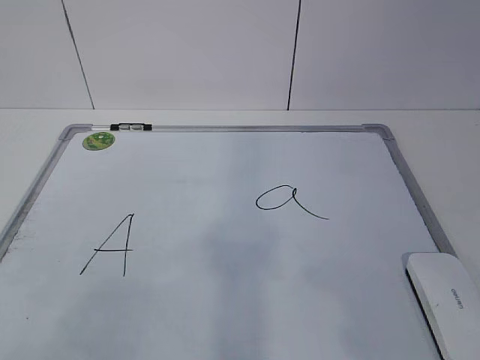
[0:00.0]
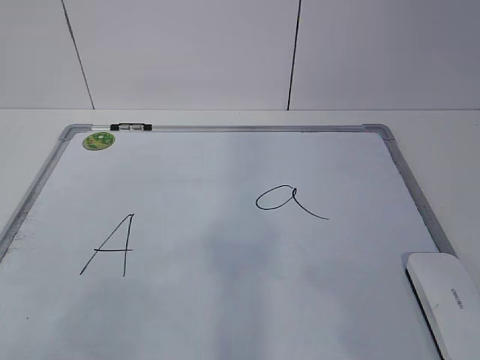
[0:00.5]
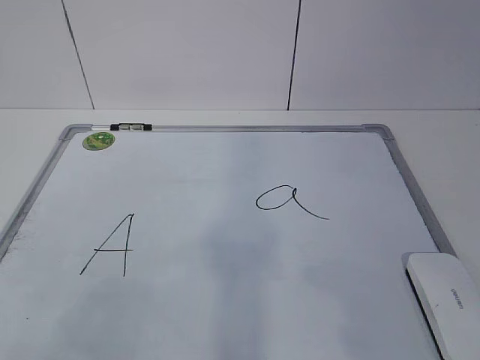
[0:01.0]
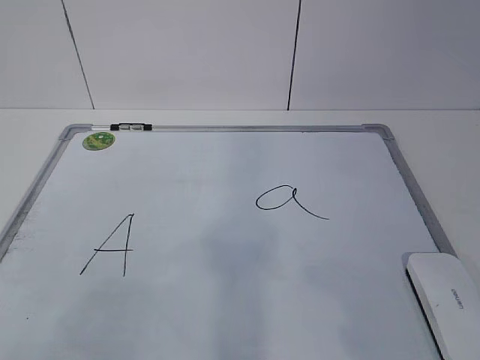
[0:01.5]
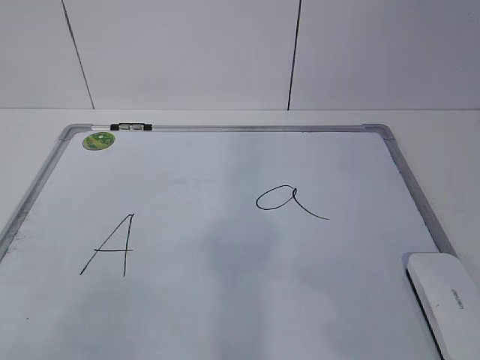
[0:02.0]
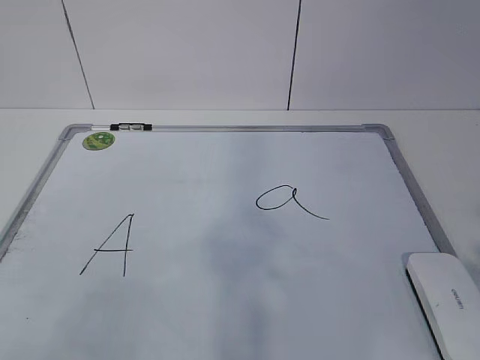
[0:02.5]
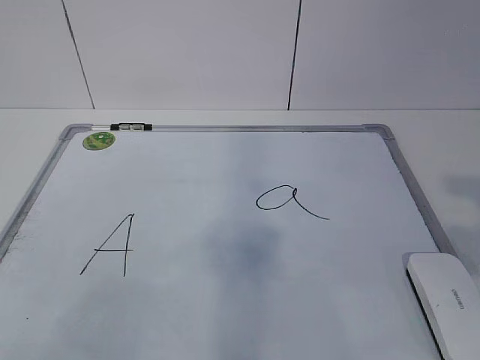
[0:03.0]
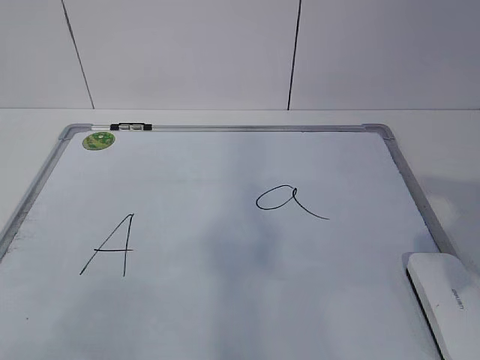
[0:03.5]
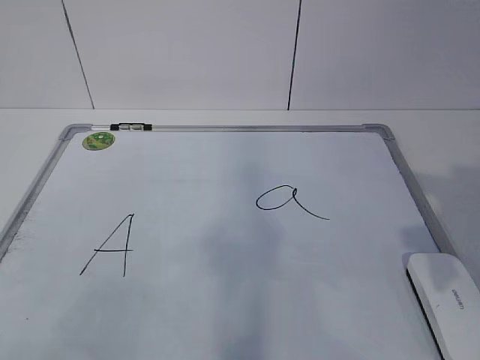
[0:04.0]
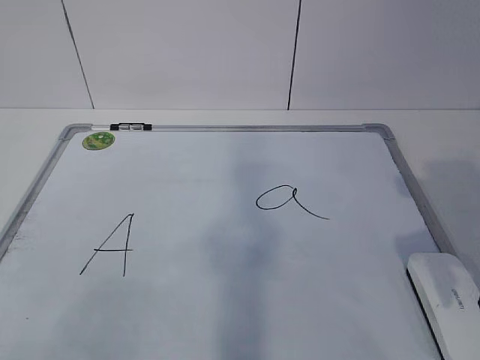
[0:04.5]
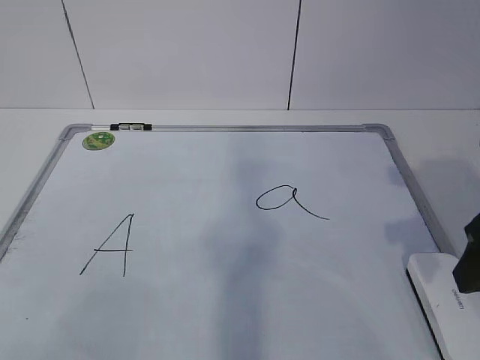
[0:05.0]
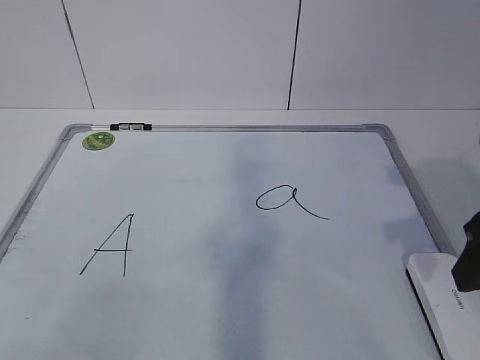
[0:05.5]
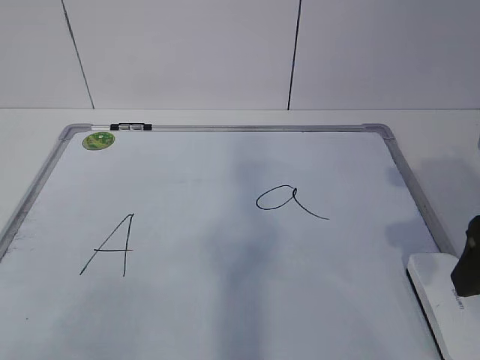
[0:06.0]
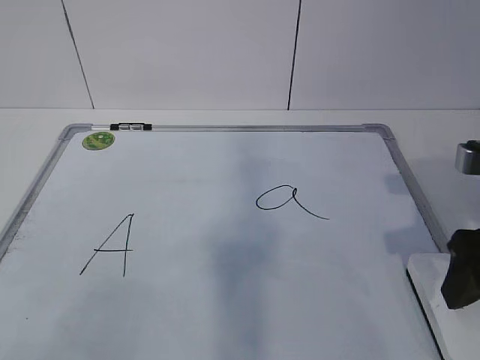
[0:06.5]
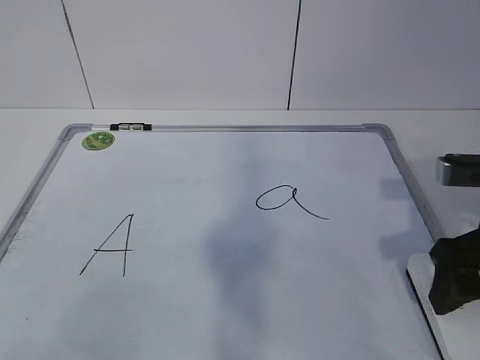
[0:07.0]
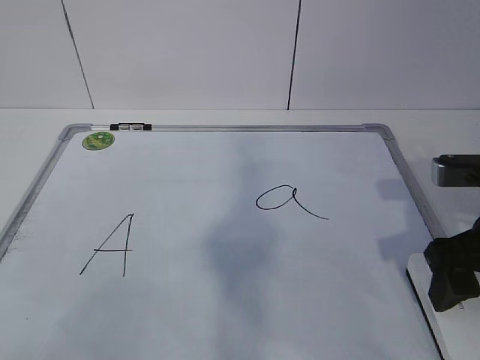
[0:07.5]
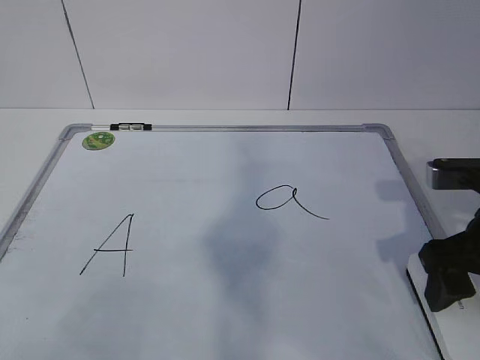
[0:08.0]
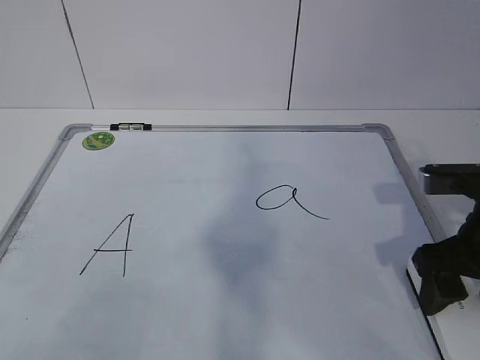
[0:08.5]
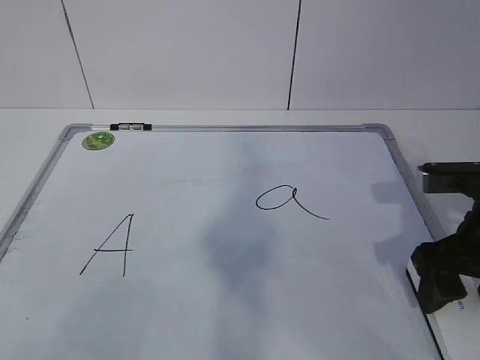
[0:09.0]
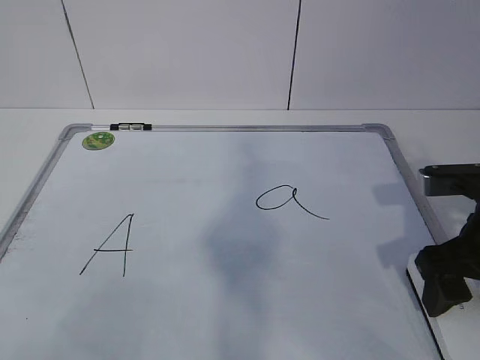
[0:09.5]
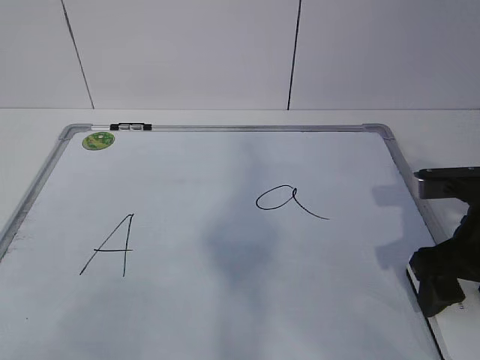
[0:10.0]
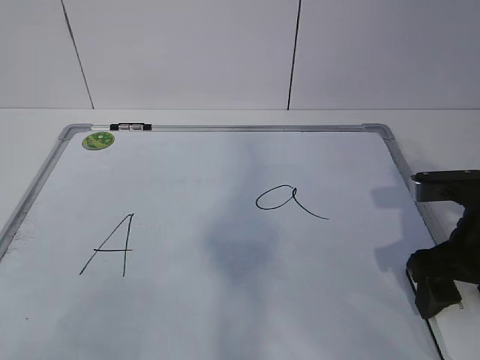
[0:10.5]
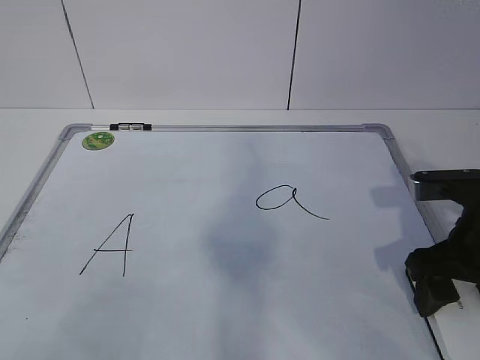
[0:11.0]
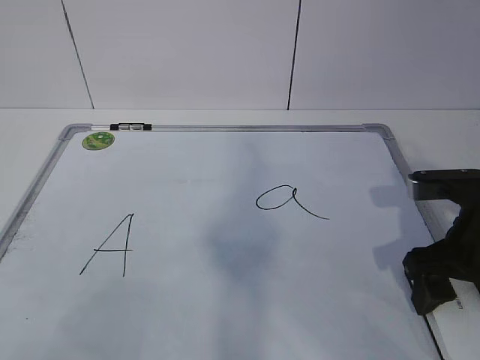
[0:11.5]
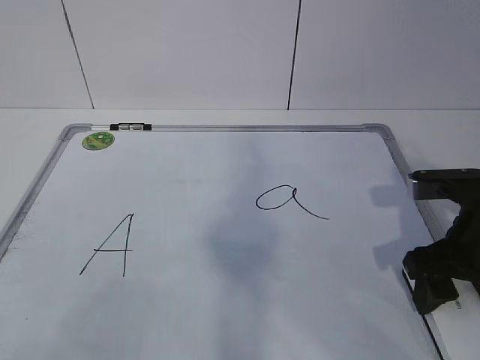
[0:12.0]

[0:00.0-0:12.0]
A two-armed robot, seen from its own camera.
Task of the whole recording: pick up the eraser on the blackboard and erase the letter "a".
Step, 0:00.0 to 0:09.5: Grab the eraser with your right hand.
0:02.0 to 0:04.0: The right gripper heads forward, covering approximately 15 cm.
0:04.0 to 0:06.0: The grippers move only a little.
0:06.0 to 0:08.0: The right gripper goes some 5 cm downward.
0:08.0 to 0:10.0: The grippers move only a little.
0:10.0 to 0:12.0: The two grippers keep their place.

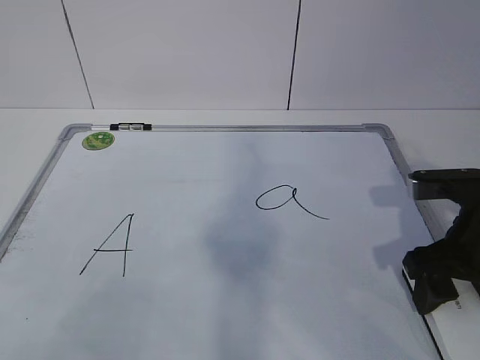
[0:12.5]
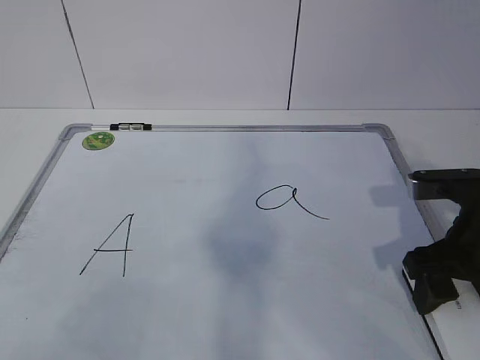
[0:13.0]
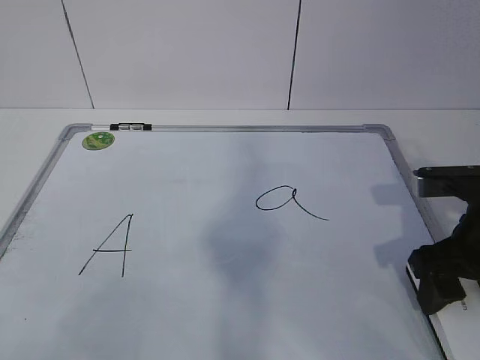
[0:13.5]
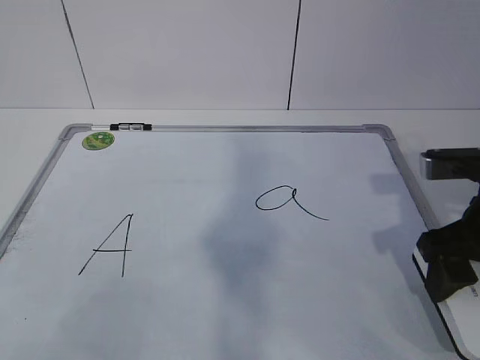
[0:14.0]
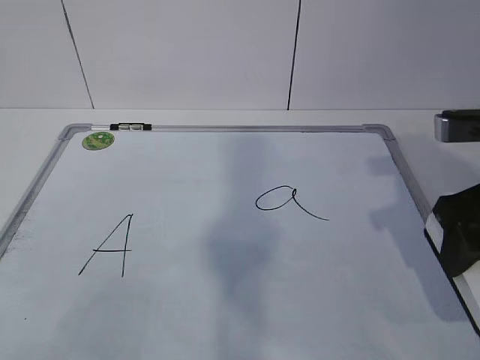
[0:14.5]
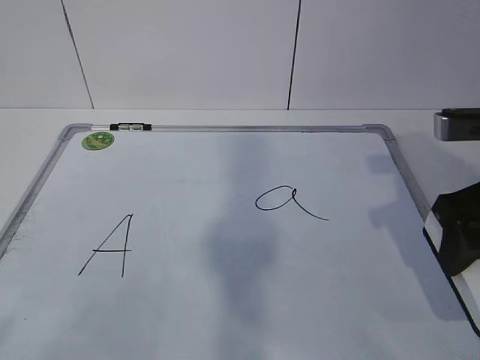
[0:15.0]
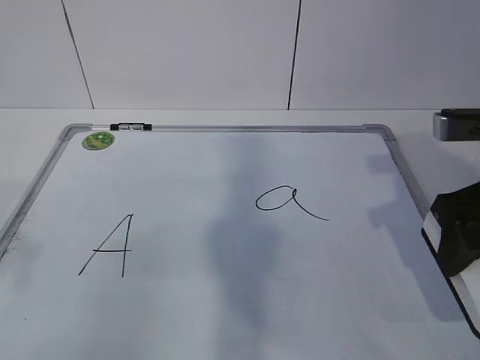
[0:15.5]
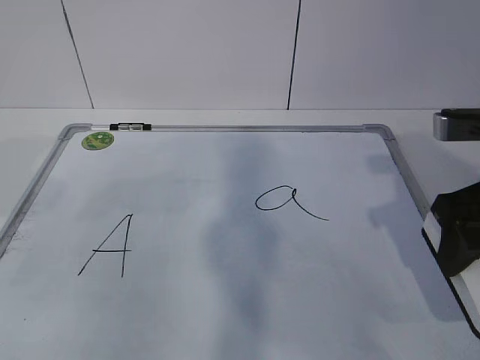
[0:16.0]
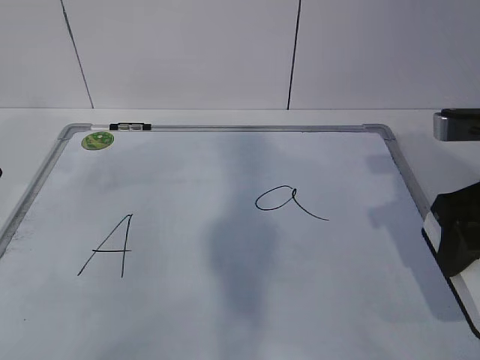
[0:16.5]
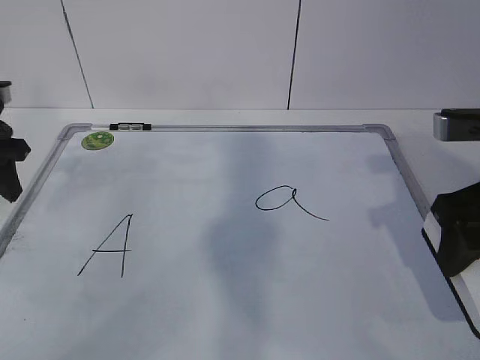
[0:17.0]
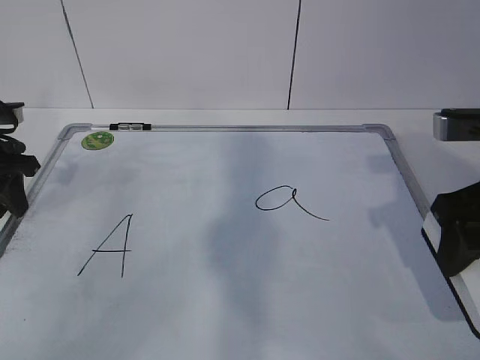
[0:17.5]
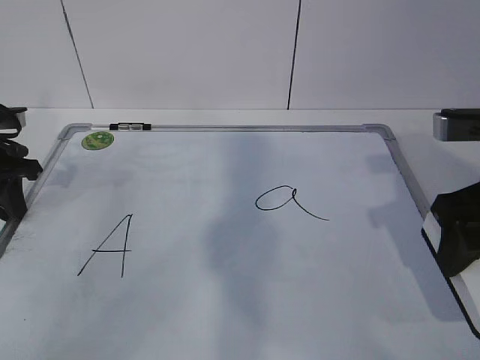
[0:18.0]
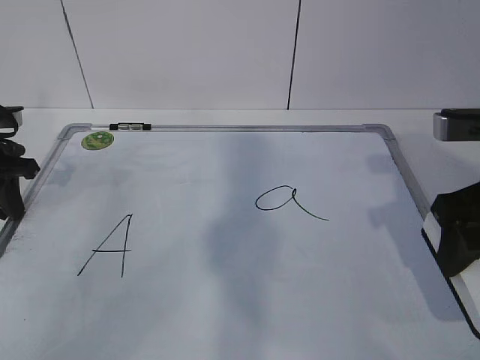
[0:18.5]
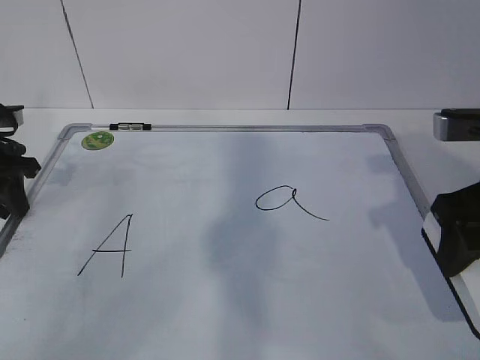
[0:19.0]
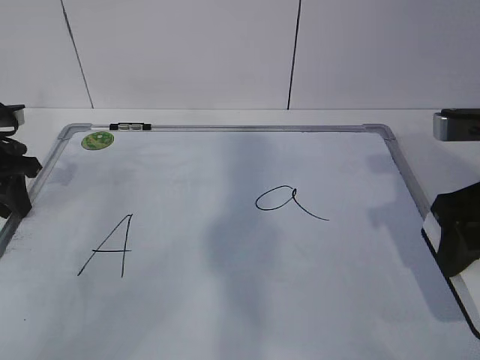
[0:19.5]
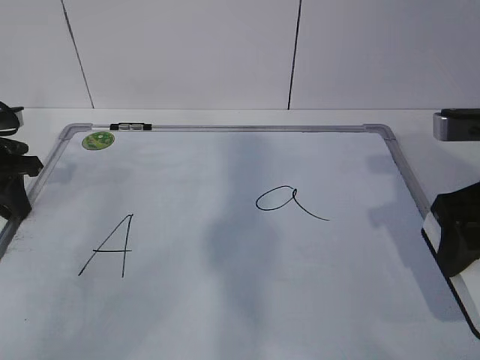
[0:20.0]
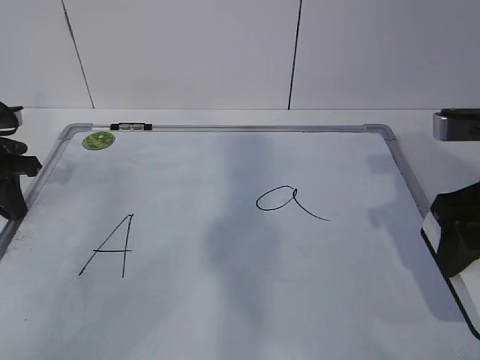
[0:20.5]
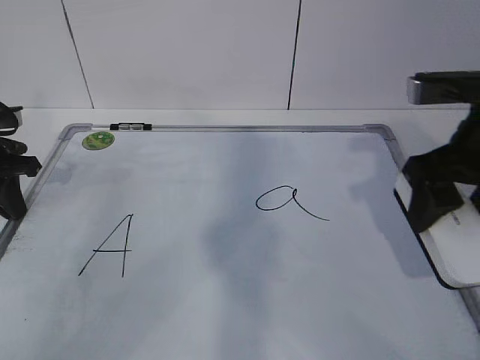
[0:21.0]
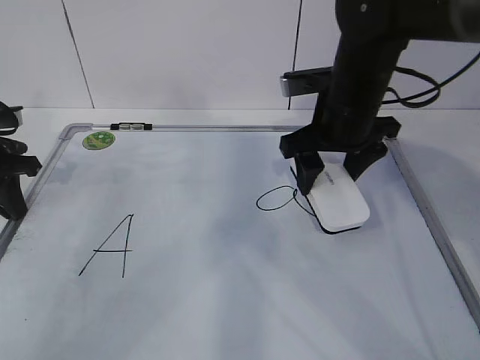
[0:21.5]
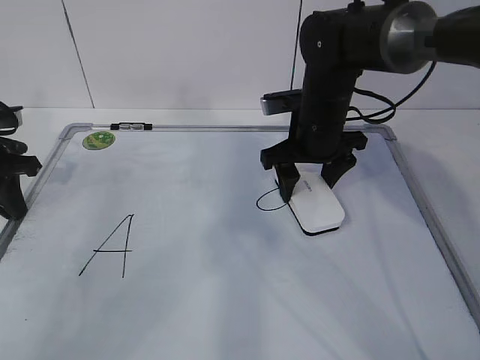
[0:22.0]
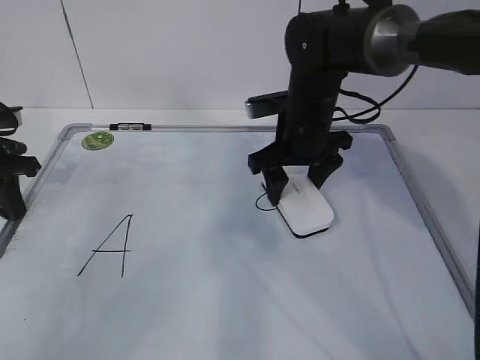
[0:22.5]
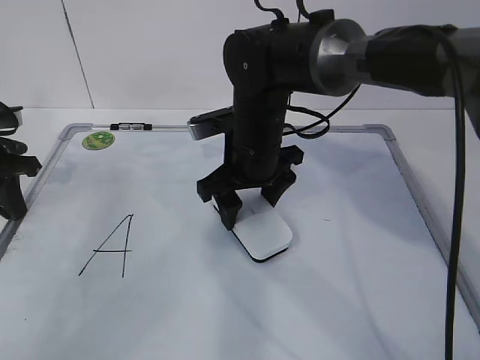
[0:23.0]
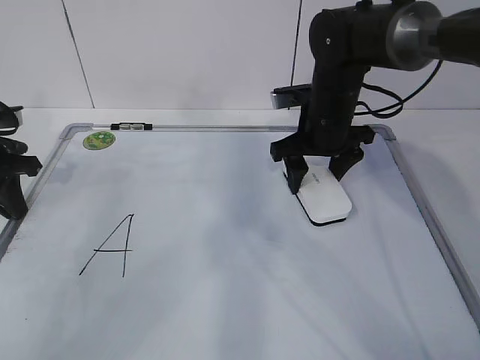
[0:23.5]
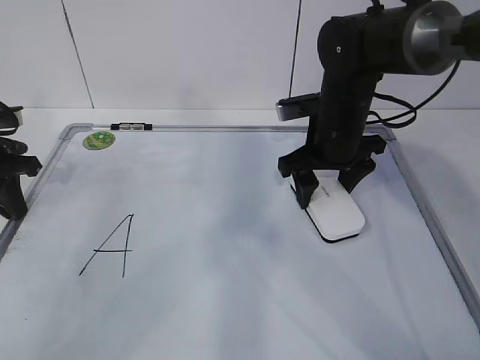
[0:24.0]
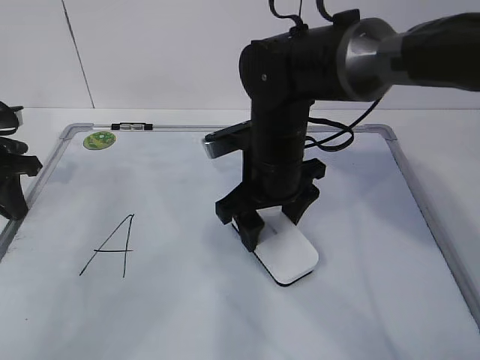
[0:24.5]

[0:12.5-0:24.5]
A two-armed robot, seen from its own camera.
Task of the whole recording: pick up the eraser on the blackboard and erase the letter "a".
Step, 0:12.5 to 0:16.5: Hold the drawing board steady with your left hand.
Step, 0:20.5 to 0:23.0: Put down the eraser with your right hand.
0:12.5 to 0:14.5: The right gripper goes some 10 cm upward.
0:16.5 to 0:18.5: The left gripper shifts some 10 cm downward and forward, and closes up.
0:18.5 to 0:20.5: Both grippers stay about where they are.
0:20.5 to 0:22.5: The right gripper is displaced forward, to the left and downward by roughly 25 cm.
0:22.5 to 0:24.5: The right gripper swings left and right, approximately 10 cm each way, with 2 reversals.

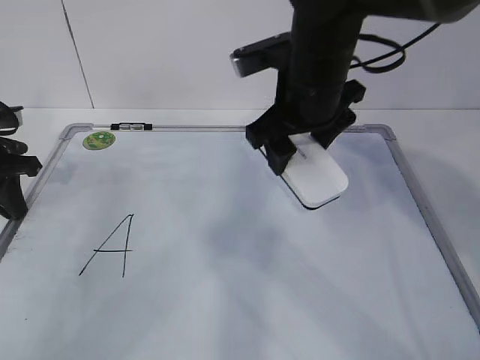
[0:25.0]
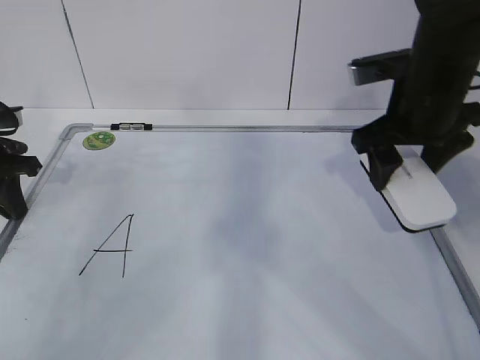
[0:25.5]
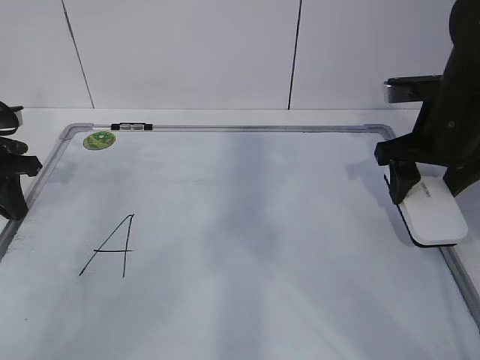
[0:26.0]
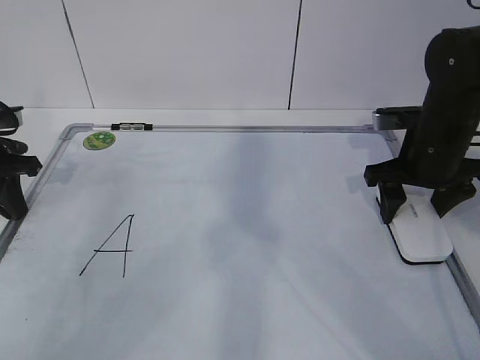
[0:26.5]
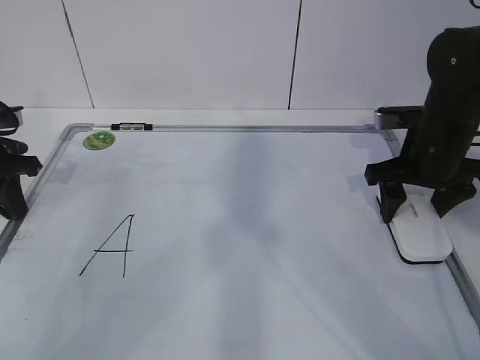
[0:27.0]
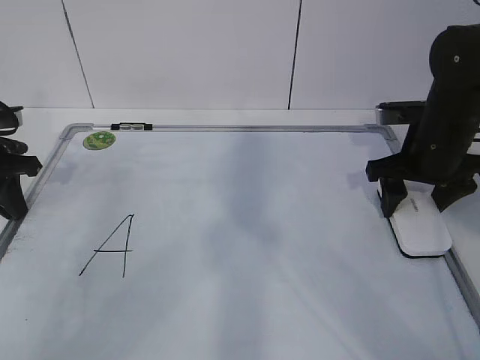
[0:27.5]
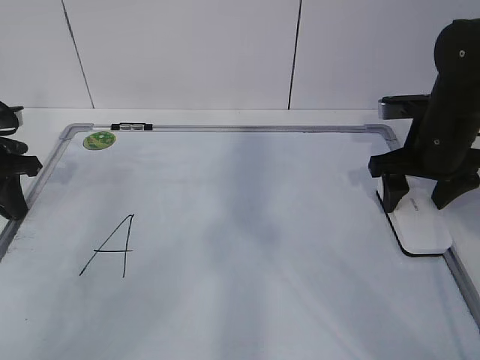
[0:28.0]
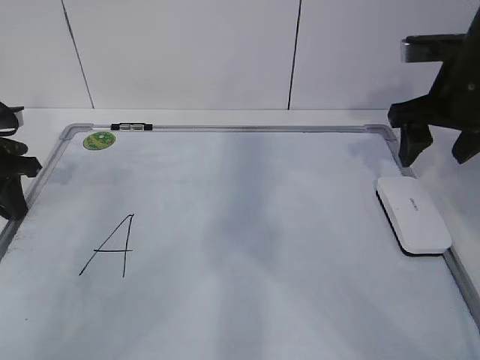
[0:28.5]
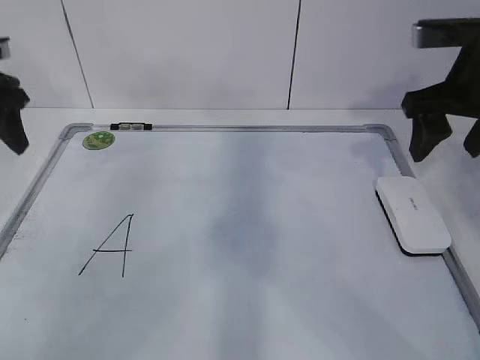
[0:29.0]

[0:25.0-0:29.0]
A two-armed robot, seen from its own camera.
Task of the whole recording: pick up the eraser on the blackboard and erase the letter "a".
0:25.0 to 0:27.0: The right gripper heads to the right and downward, covering about 15 cm.
0:27.0 to 0:29.0: The two grippers go about 10 cm upward. The left gripper opens up.
